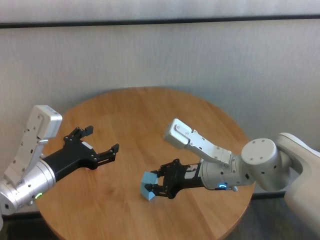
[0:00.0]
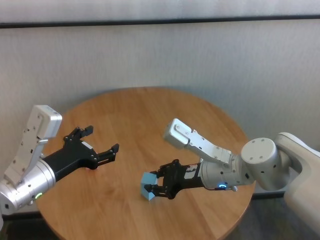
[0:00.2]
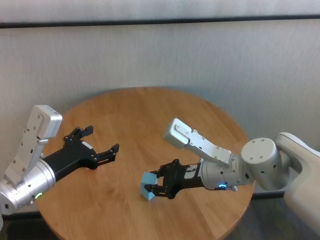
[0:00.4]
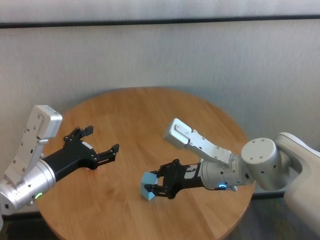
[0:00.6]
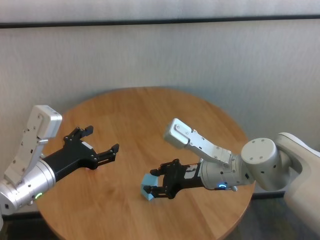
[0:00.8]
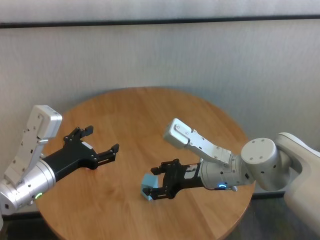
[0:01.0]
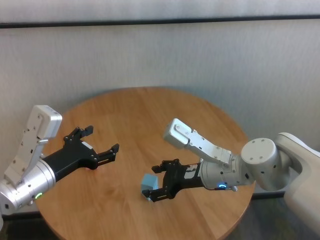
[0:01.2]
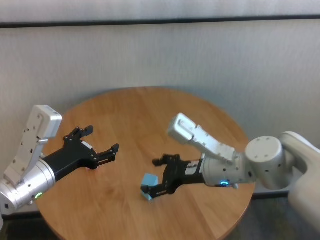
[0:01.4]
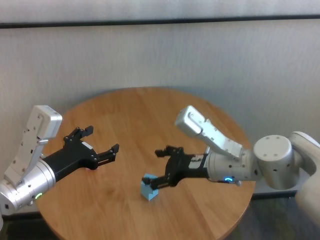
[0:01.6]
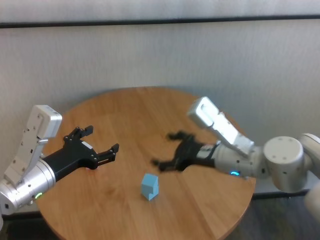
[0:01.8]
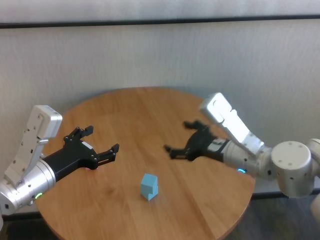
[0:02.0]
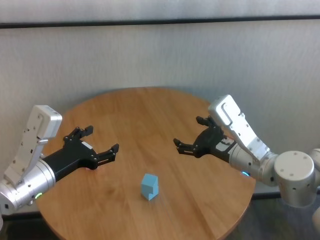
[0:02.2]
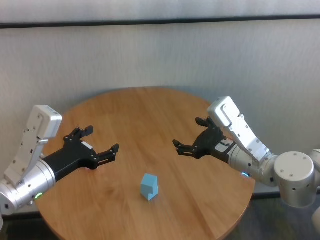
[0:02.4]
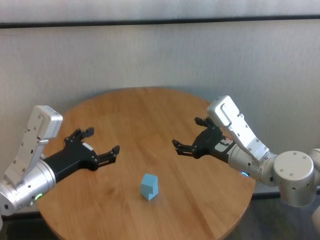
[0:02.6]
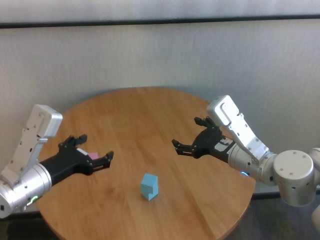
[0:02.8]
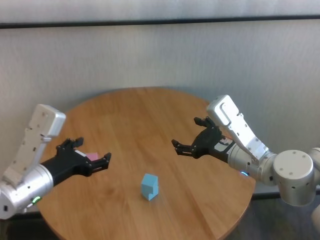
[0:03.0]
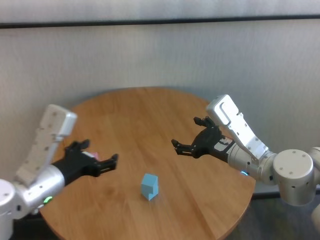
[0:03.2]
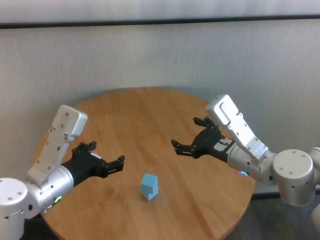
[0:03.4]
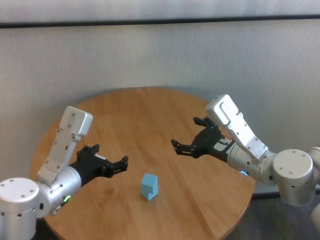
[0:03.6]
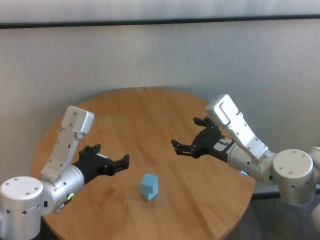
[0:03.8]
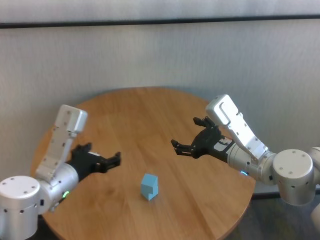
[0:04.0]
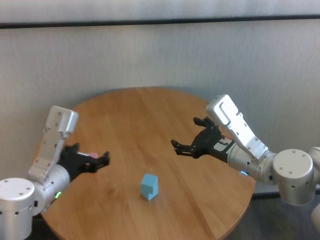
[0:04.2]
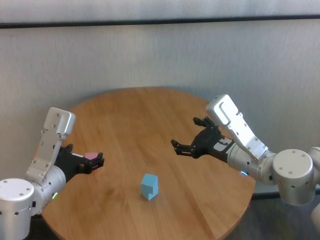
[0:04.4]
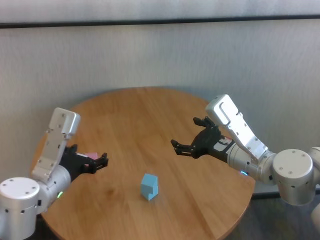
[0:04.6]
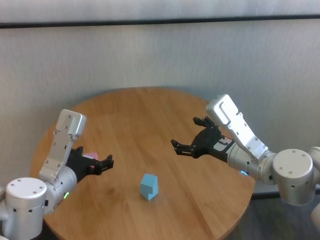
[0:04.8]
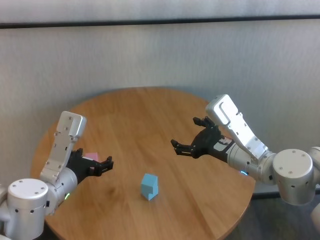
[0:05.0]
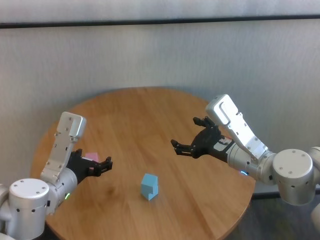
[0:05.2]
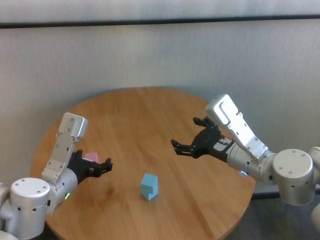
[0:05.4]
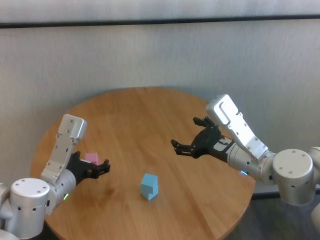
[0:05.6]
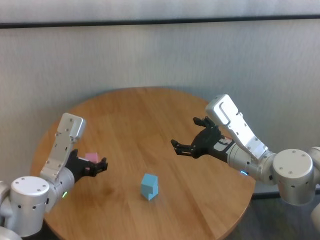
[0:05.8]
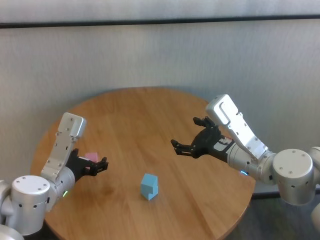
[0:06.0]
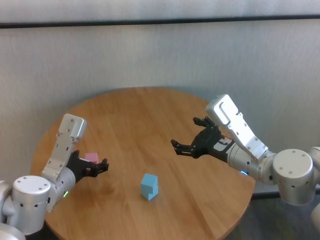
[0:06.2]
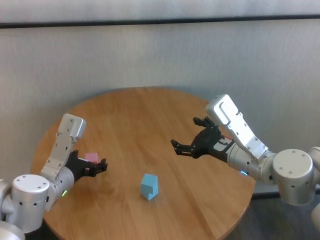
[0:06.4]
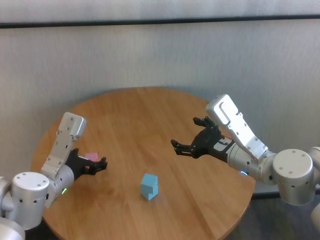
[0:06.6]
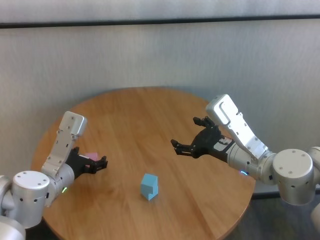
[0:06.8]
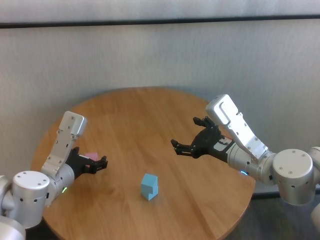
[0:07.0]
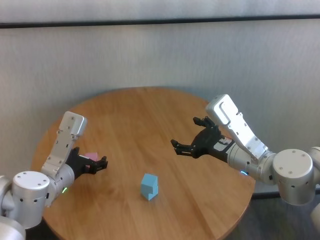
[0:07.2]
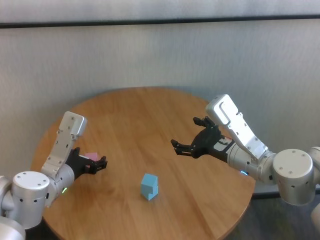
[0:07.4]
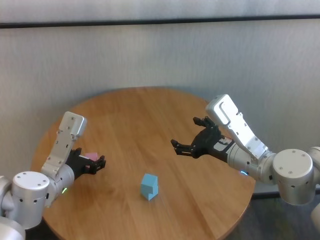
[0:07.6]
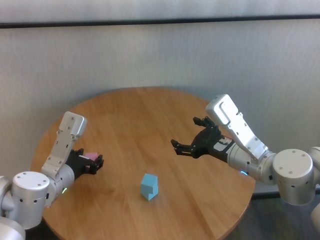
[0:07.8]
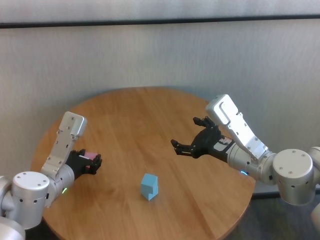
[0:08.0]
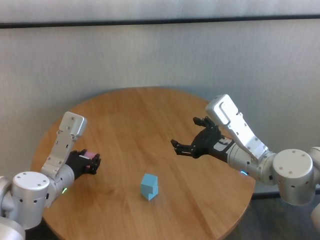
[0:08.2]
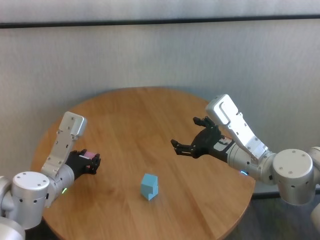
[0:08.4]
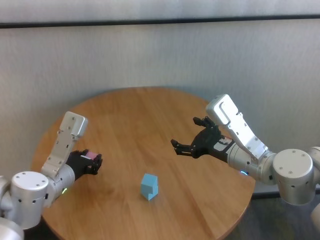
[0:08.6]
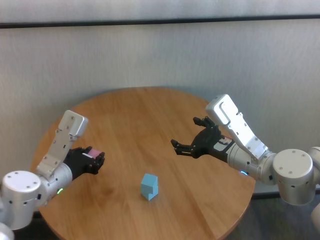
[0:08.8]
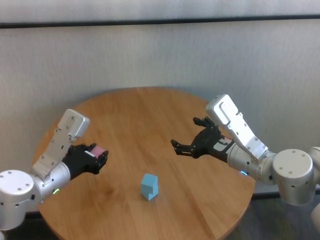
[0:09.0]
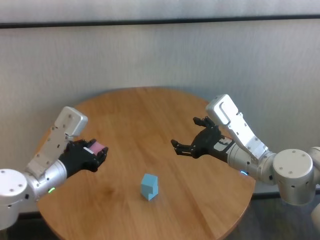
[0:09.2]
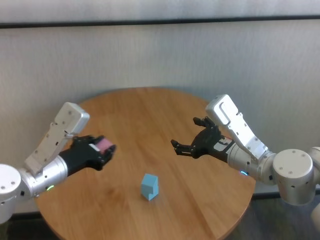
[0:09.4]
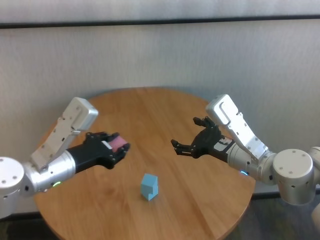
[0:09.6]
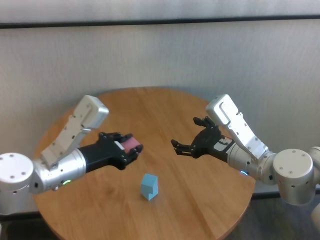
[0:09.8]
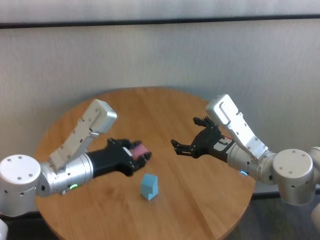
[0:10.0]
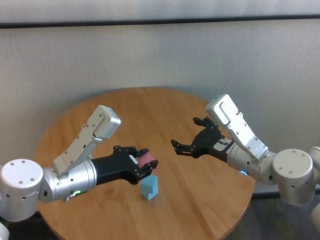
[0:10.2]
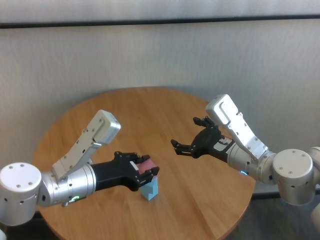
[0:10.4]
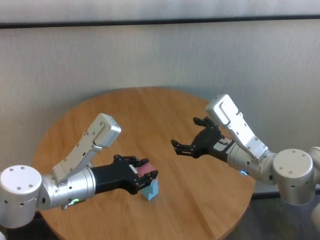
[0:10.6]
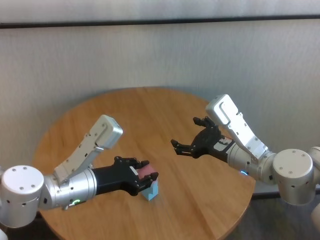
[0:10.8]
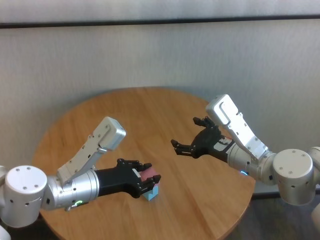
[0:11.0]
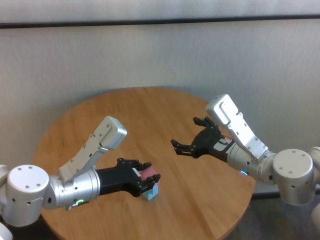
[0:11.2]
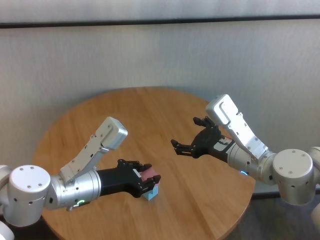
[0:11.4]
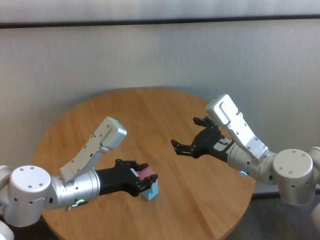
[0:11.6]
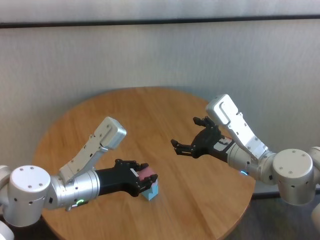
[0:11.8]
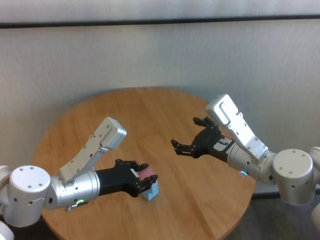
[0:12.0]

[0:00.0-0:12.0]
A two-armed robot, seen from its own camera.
Task of the whole recording: stack building blocks on the table.
Step, 0:01.2 to 0:08.0: Grasp the pink building block with left gripper.

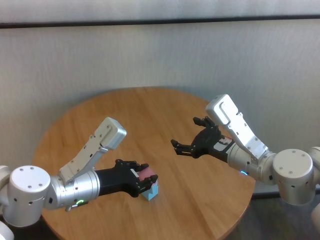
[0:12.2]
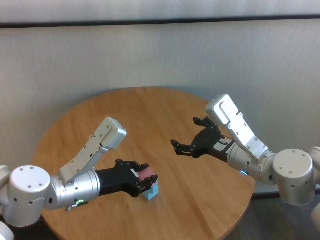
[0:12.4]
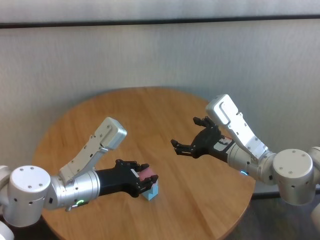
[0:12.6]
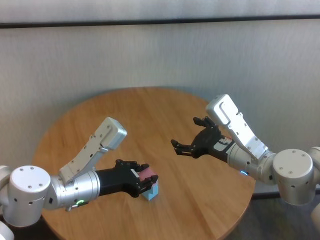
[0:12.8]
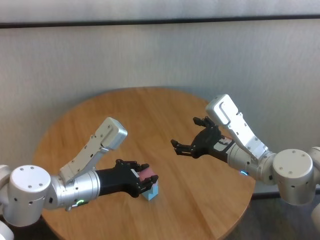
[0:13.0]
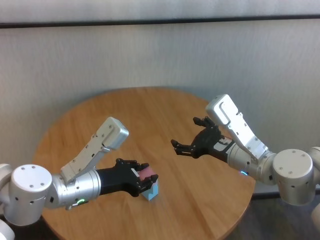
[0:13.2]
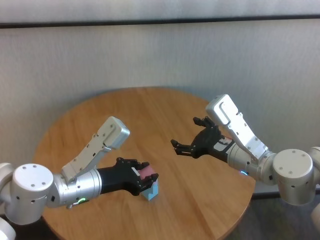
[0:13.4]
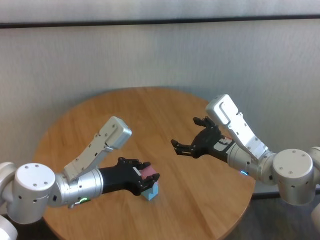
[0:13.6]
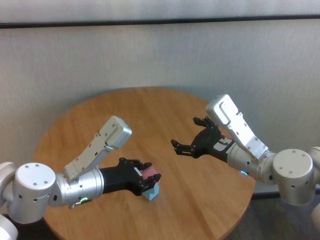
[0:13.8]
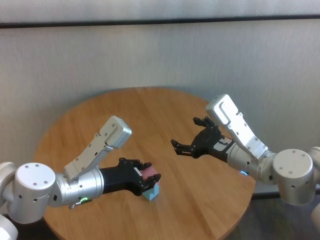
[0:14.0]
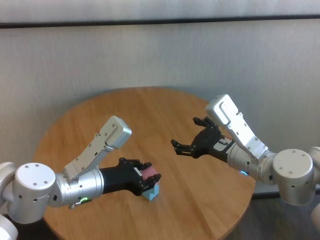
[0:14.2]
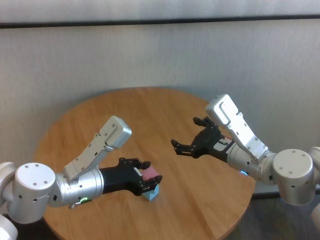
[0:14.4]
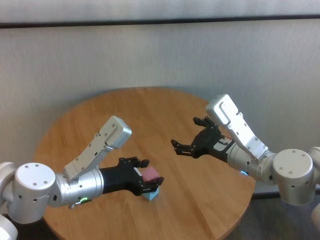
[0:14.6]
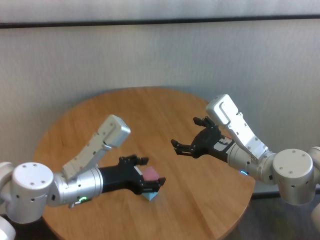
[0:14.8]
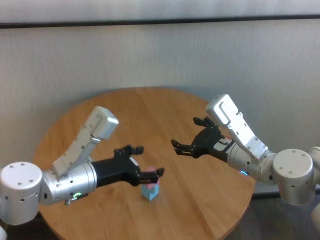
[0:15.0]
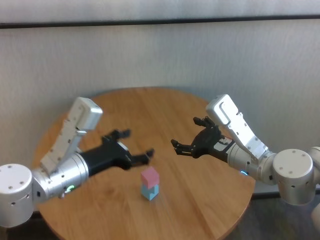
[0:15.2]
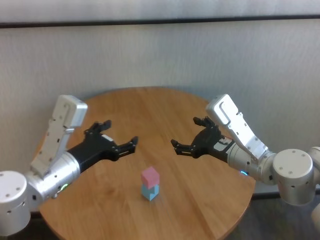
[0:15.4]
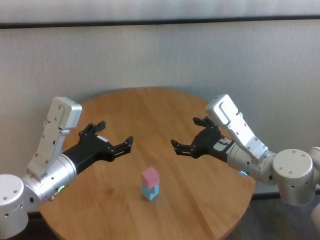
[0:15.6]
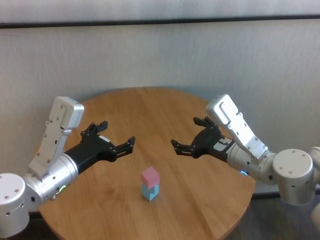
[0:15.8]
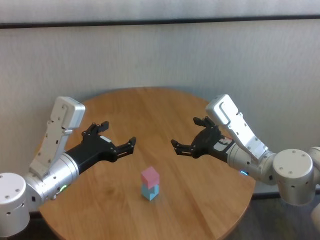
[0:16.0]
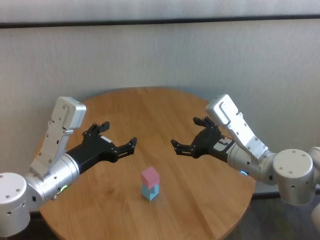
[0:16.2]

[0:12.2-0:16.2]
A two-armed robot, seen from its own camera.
Task of the whole recording: stack building blocks on the table.
Step, 0:12.2 to 0:14.6: Place the pink building block on the blue building blocks with left gripper.

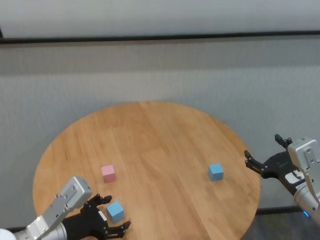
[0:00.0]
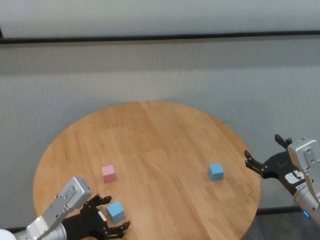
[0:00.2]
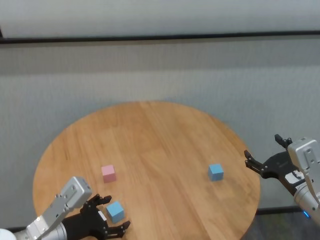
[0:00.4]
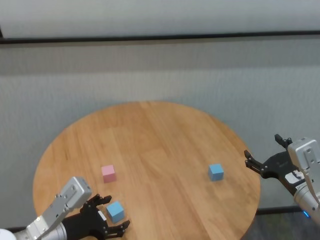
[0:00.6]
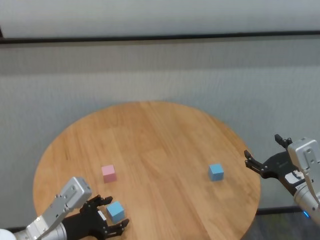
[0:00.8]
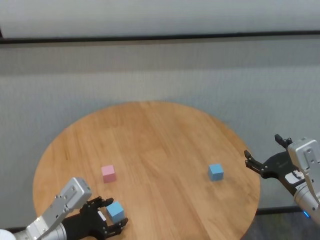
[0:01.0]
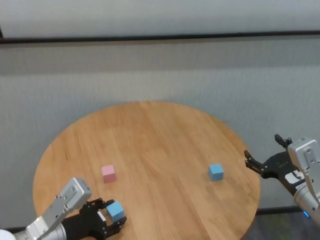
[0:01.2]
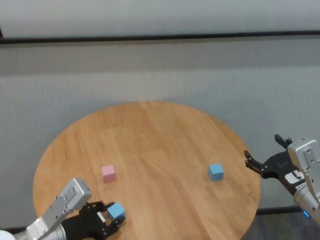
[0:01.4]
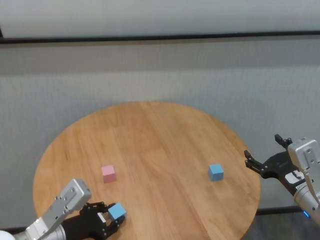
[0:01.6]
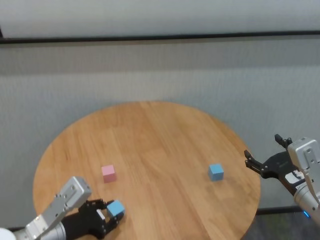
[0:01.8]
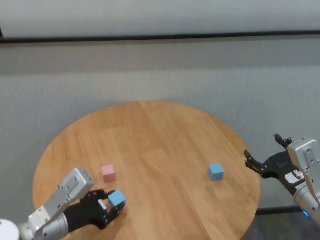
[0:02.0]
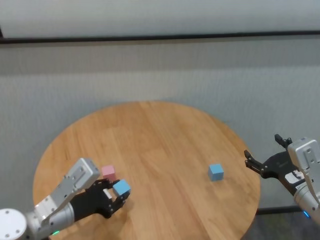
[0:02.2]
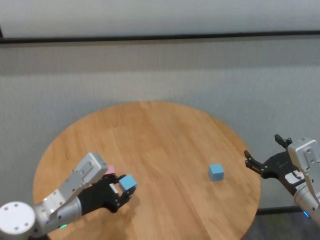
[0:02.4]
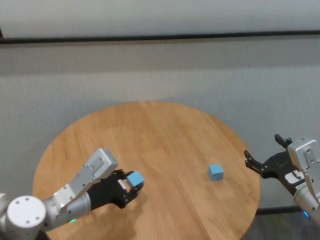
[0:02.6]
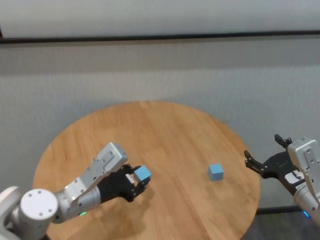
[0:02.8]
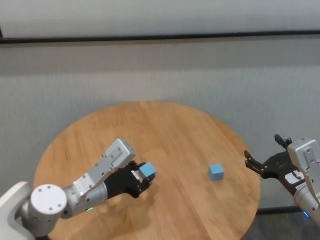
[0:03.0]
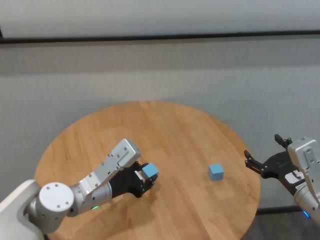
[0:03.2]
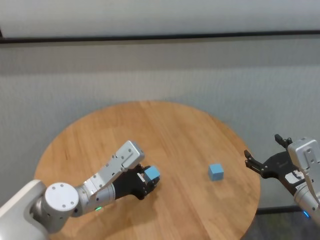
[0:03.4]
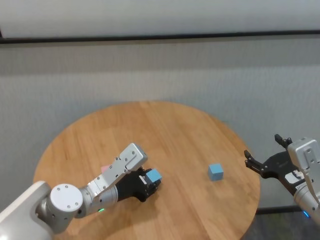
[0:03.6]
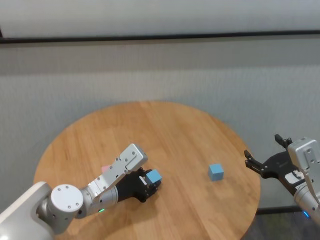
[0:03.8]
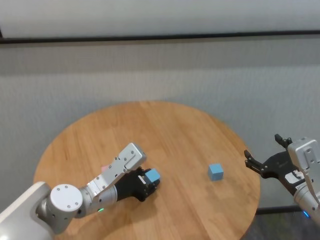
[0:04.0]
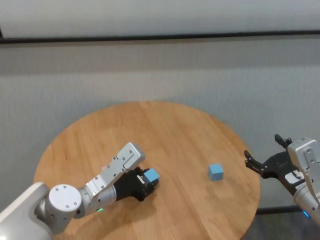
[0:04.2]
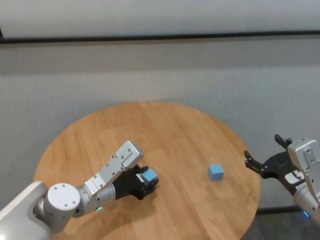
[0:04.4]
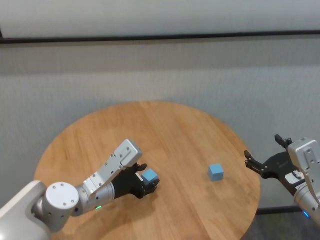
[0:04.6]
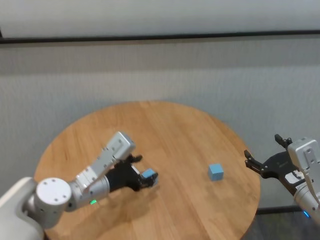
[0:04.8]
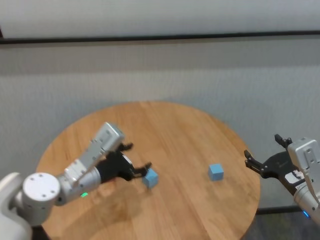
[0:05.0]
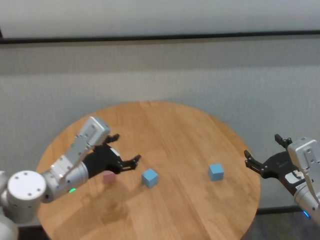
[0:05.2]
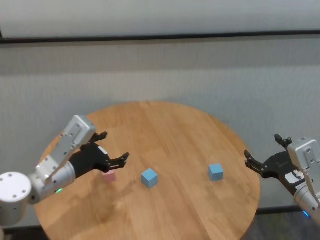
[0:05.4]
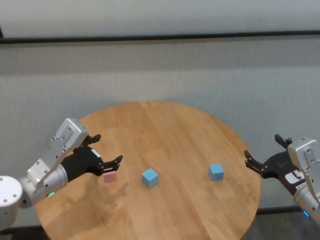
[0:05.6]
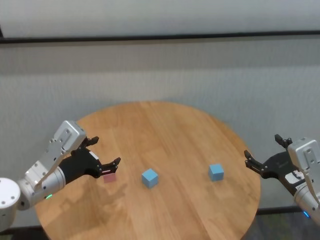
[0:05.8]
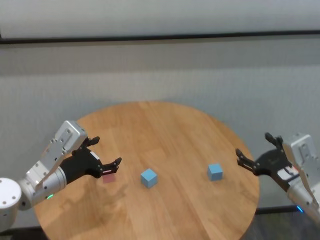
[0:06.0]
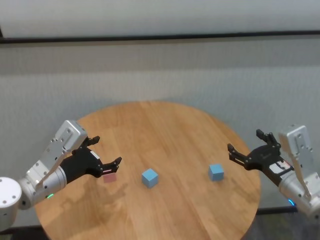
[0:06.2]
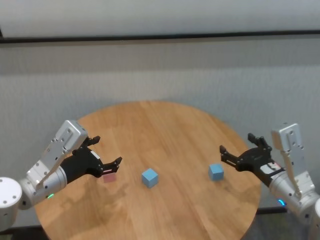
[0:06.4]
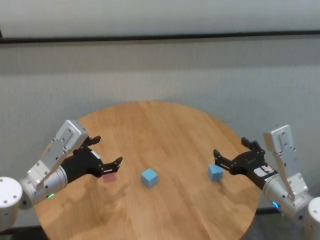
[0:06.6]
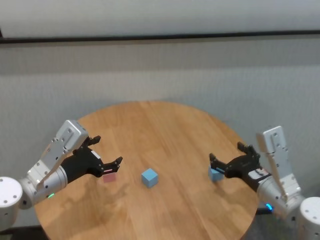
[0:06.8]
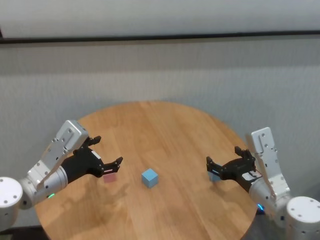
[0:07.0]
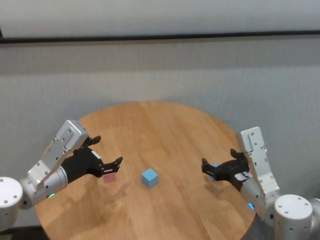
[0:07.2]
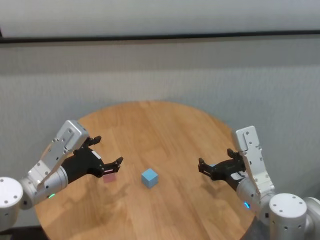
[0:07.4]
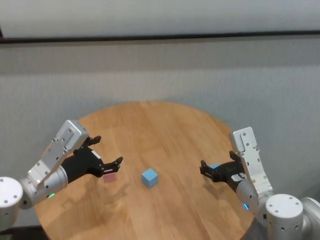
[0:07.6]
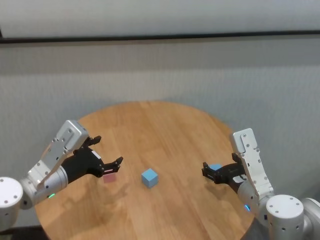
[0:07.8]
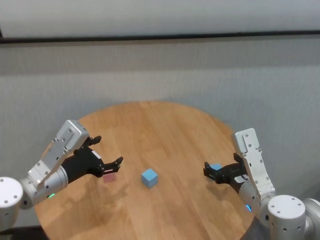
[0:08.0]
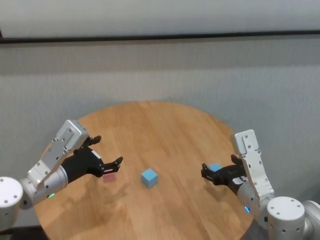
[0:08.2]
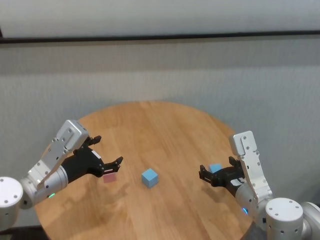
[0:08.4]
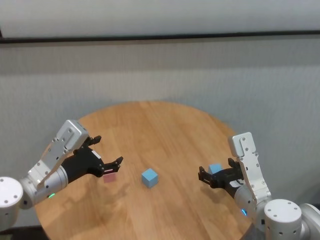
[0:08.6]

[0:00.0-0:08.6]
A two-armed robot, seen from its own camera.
Task of the whole recording: stack building blocks on the table.
Step, 0:01.6 to 0:04.6: Place the blue building block in the center of table with left gripper.
